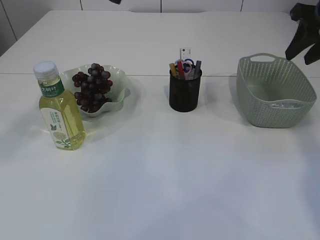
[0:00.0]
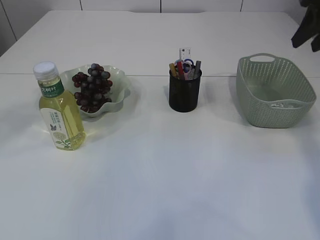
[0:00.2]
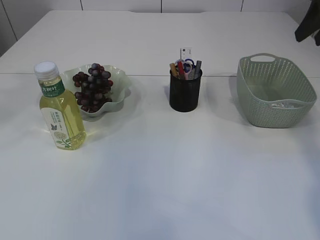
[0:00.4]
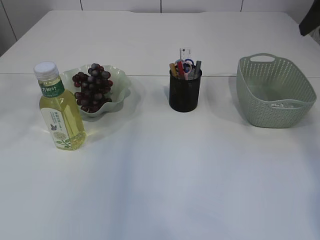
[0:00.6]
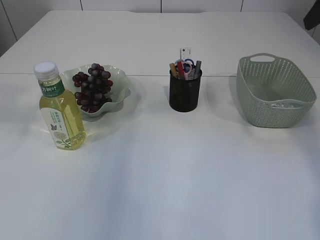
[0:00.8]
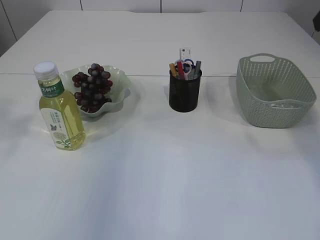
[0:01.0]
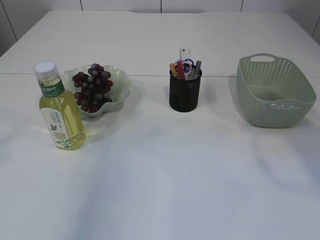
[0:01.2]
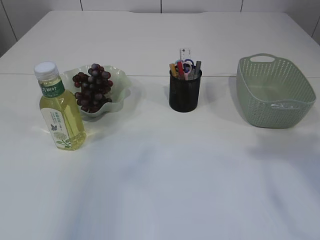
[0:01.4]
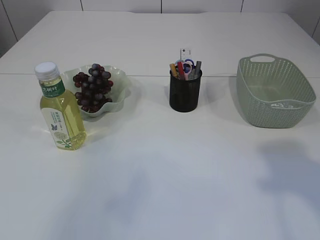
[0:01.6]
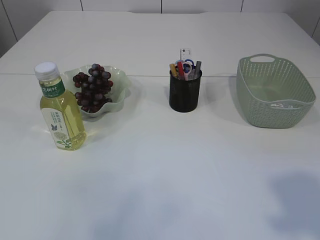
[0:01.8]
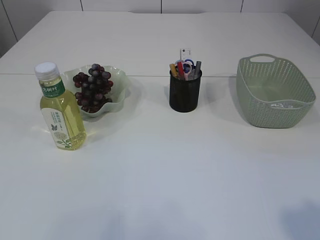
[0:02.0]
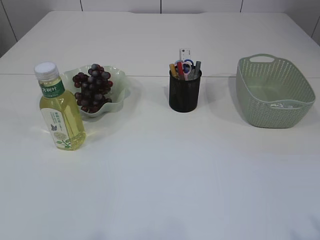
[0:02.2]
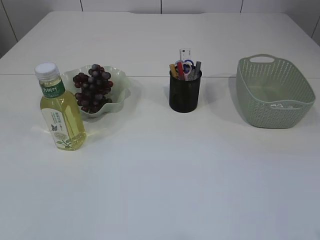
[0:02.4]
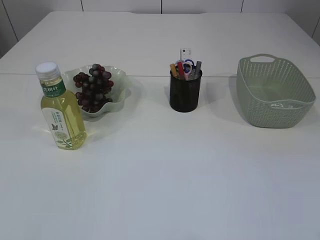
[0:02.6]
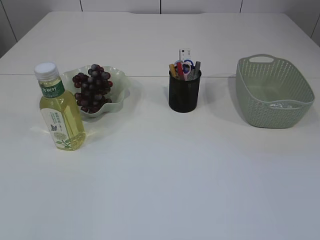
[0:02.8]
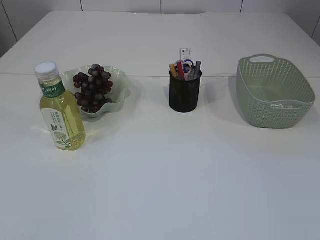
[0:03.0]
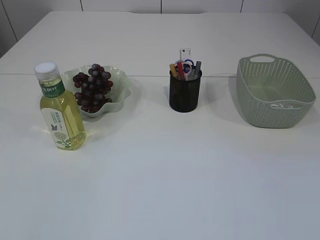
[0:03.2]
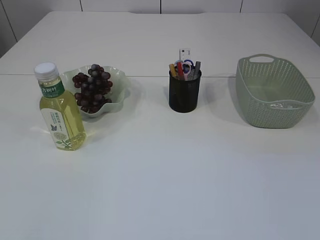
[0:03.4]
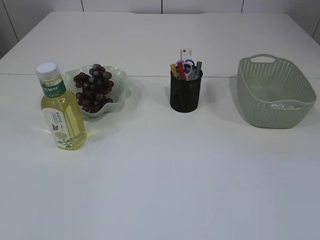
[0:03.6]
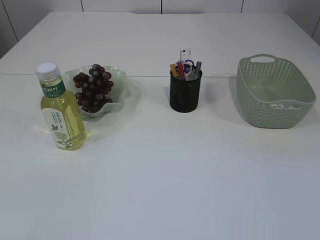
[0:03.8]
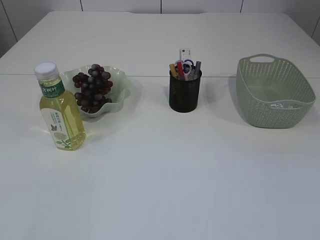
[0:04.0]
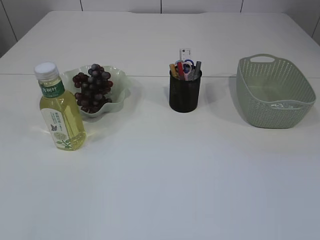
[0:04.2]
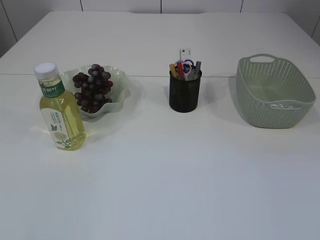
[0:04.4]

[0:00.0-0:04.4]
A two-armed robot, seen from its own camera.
0:00.0 to 0:01.4: The right gripper shifts some 20 cm backward and upward.
